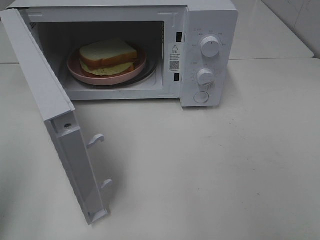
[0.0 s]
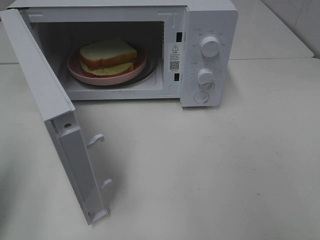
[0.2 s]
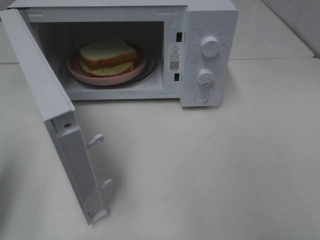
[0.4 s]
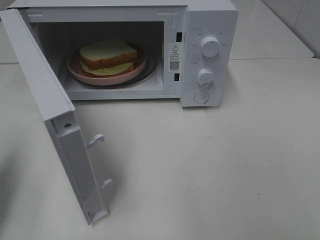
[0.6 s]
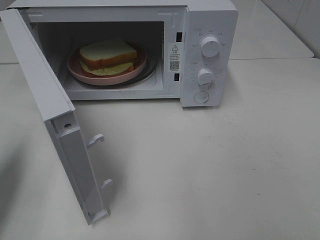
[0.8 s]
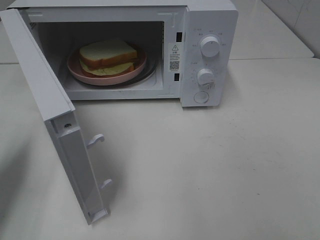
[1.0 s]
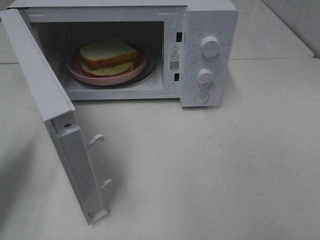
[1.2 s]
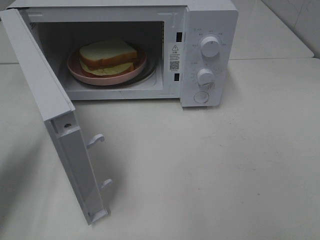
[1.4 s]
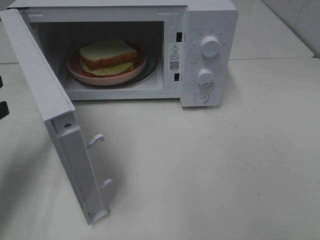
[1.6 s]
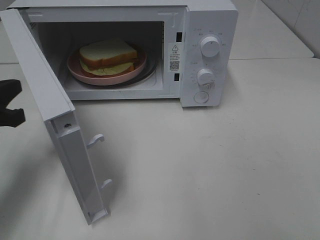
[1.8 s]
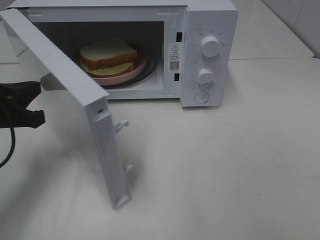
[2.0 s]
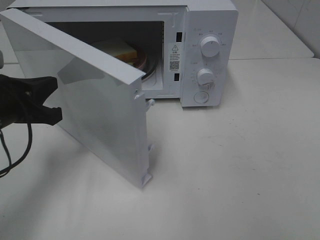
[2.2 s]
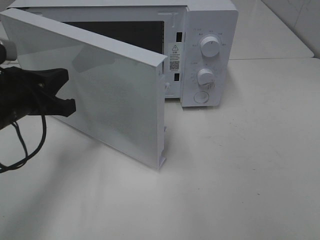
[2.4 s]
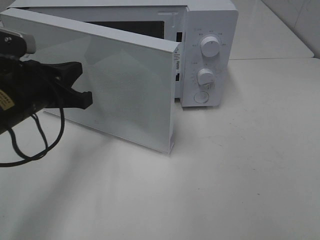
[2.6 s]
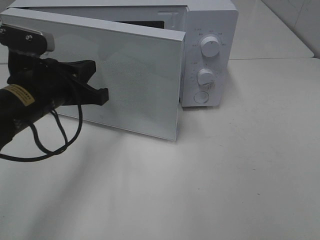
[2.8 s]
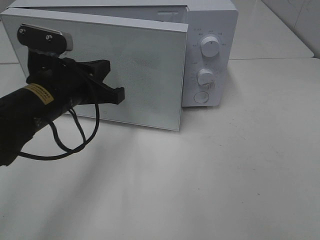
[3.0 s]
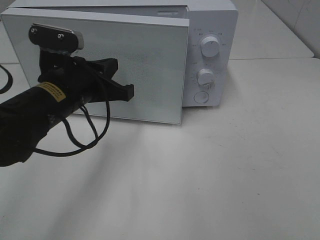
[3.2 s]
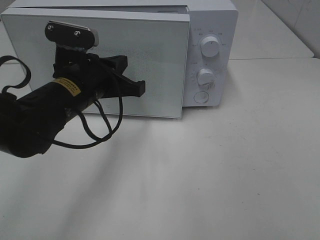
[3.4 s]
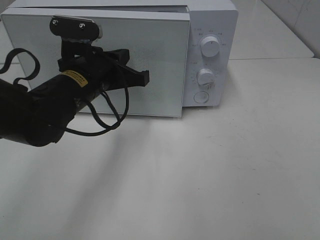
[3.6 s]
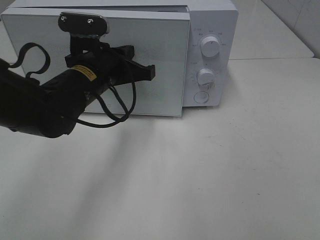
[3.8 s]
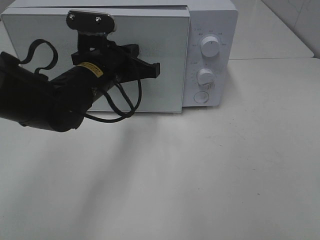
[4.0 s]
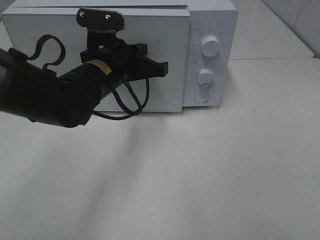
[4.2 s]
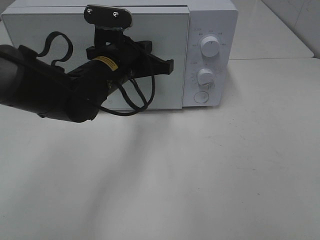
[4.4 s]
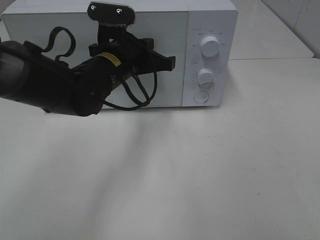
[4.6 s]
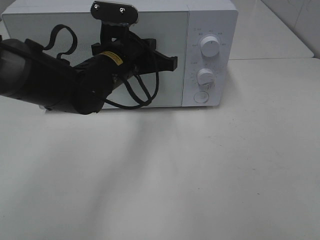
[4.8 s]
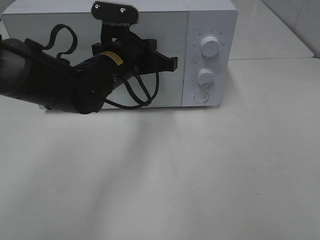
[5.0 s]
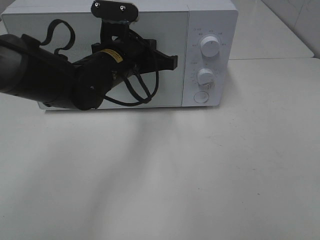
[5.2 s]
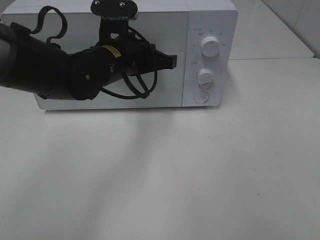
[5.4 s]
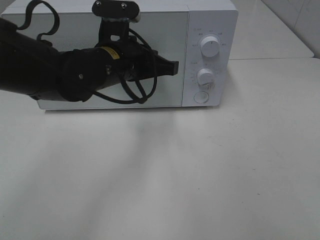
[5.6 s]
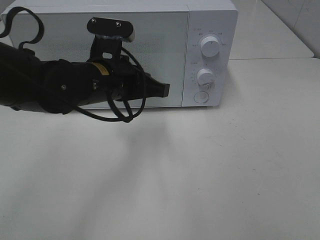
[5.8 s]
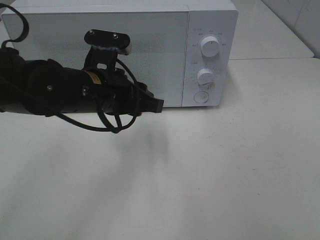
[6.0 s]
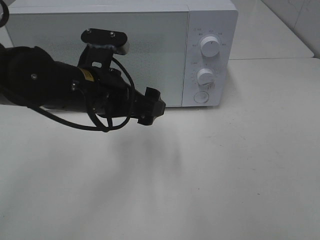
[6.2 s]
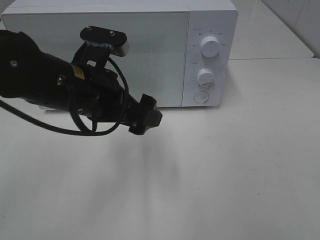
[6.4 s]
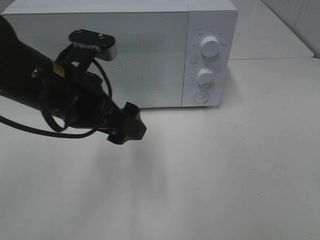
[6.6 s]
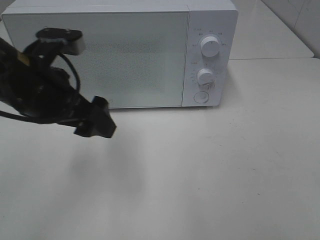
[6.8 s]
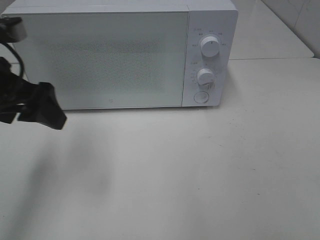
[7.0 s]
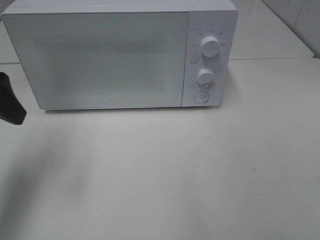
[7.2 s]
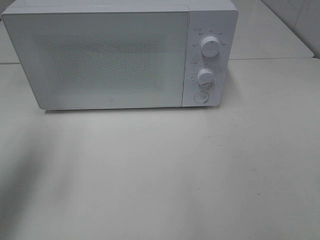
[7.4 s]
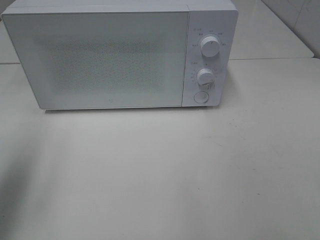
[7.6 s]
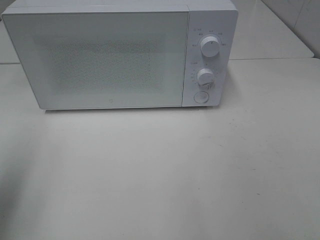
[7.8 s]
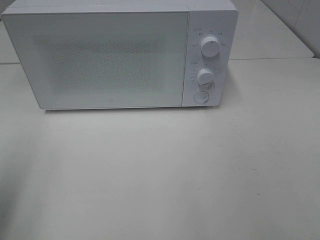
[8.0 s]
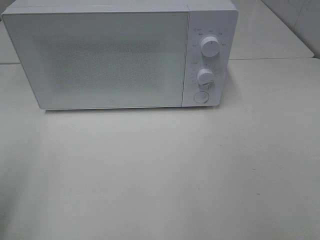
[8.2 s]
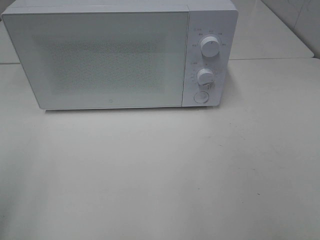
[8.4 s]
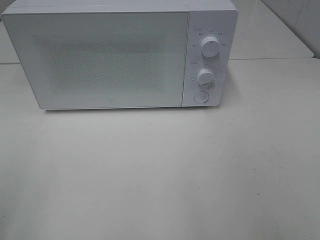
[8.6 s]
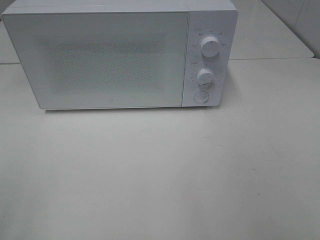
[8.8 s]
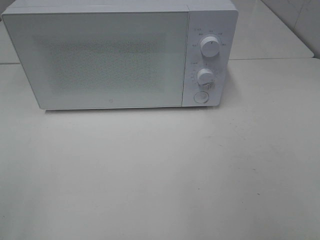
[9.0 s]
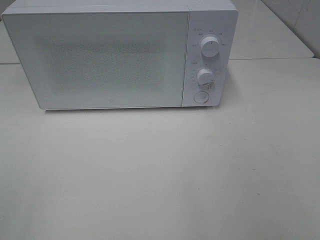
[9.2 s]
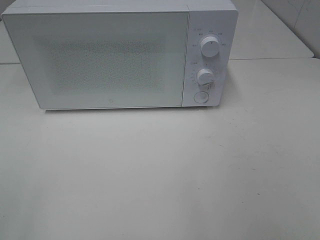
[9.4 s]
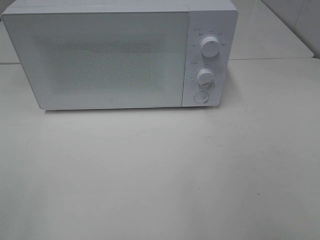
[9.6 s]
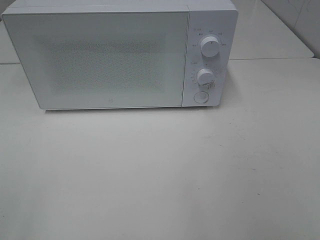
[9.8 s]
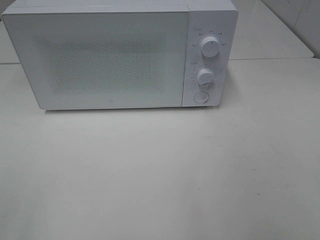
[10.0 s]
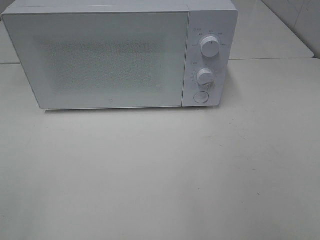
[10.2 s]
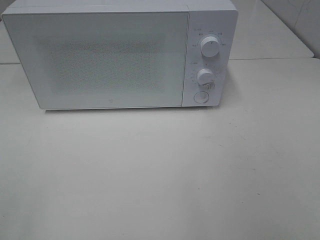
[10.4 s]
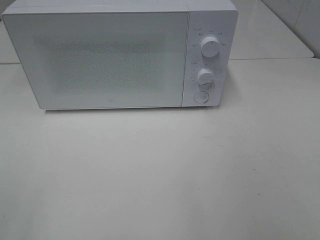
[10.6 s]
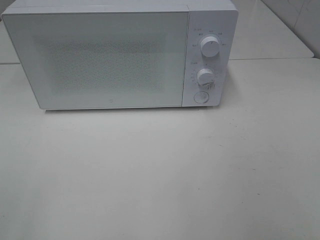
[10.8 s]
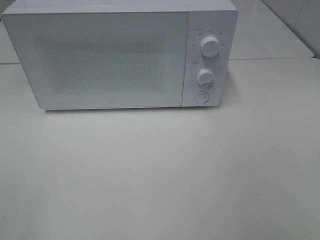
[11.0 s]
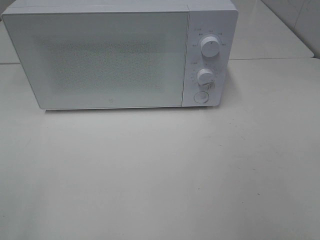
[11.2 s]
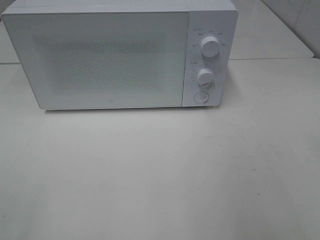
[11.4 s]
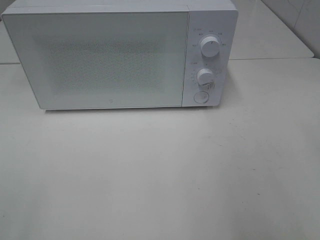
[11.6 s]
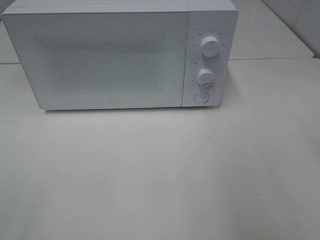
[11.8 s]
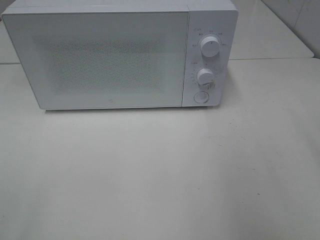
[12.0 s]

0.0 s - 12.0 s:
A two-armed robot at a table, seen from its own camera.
Task of the whole recording: Heat Sandwich.
Step, 0.0 s - 6.0 s: Left hand: close the microwave door.
0.0 s - 1.6 s: The left gripper shifts some 20 cm forward and downward.
1.6 s - 3.0 s: The left gripper moves to the right, about 15 cm.
3.0 s - 4.4 s: The left gripper is displaced to the right and forward by approximately 10 cm.
4.4 s - 6.0 s: The left gripper heads backward, covering some 5 cm, and opens up.
6.0 s - 7.6 s: The left gripper moves to the left and upward, about 25 cm, and opens up.
7.6 s - 9.0 s: The left gripper shifts some 15 cm backward.

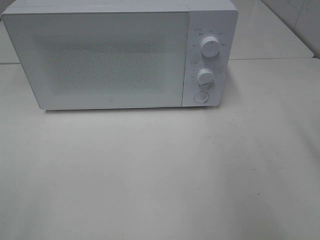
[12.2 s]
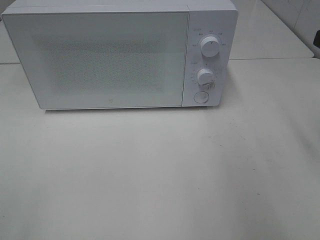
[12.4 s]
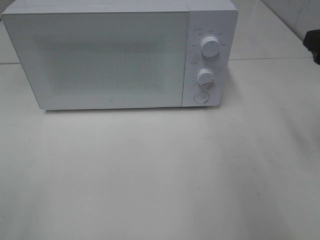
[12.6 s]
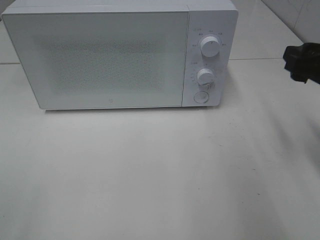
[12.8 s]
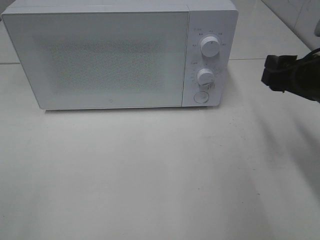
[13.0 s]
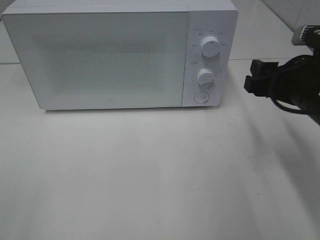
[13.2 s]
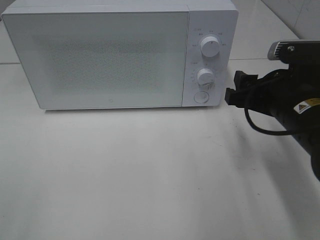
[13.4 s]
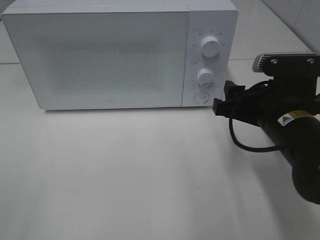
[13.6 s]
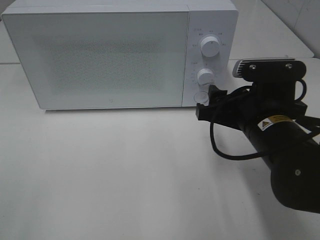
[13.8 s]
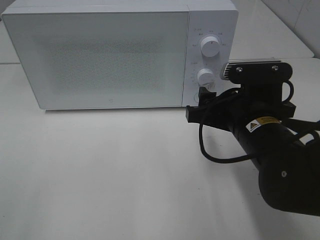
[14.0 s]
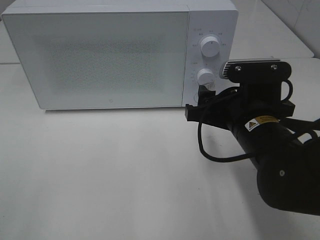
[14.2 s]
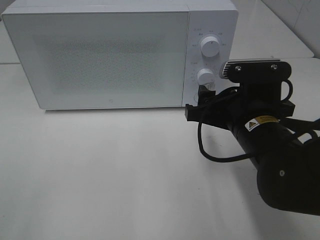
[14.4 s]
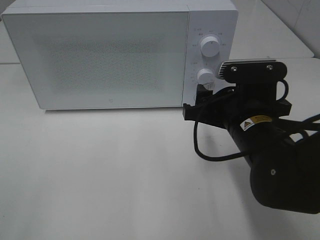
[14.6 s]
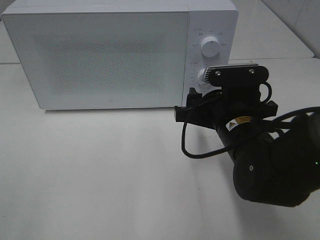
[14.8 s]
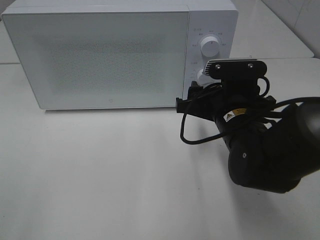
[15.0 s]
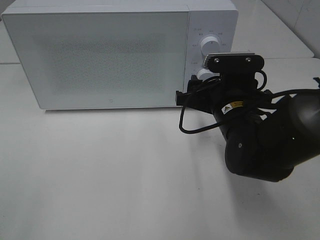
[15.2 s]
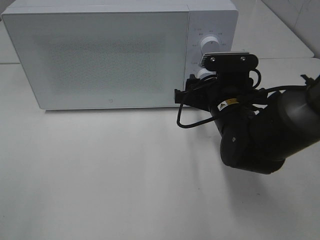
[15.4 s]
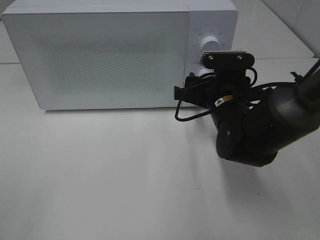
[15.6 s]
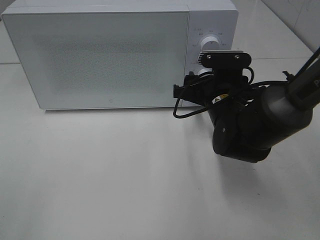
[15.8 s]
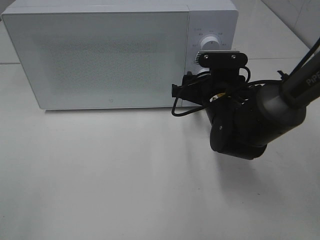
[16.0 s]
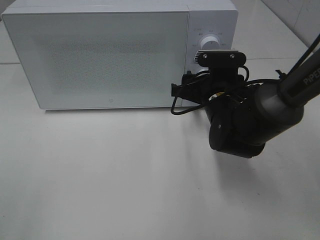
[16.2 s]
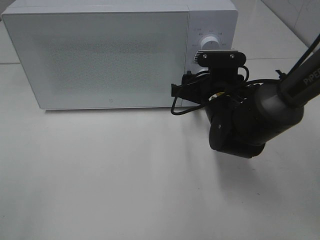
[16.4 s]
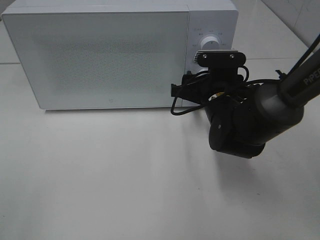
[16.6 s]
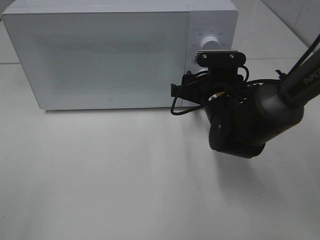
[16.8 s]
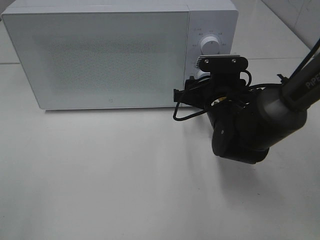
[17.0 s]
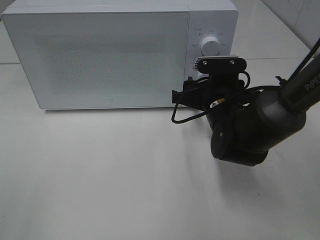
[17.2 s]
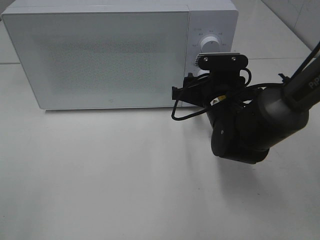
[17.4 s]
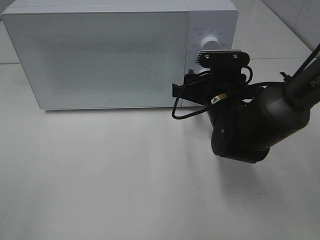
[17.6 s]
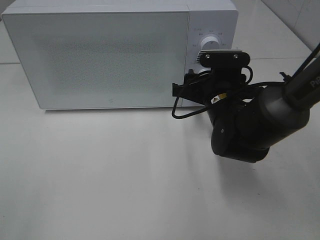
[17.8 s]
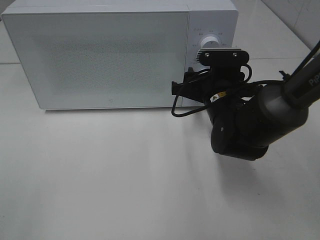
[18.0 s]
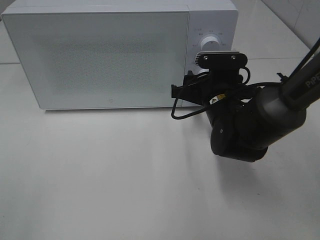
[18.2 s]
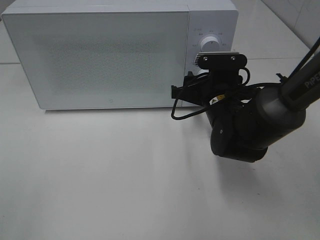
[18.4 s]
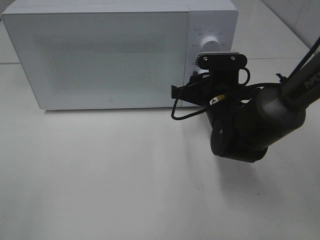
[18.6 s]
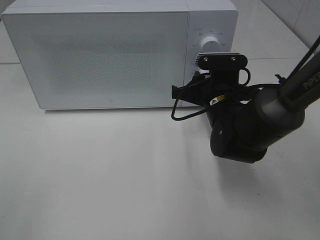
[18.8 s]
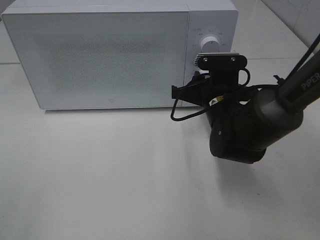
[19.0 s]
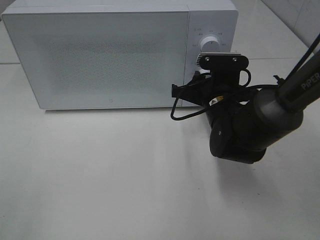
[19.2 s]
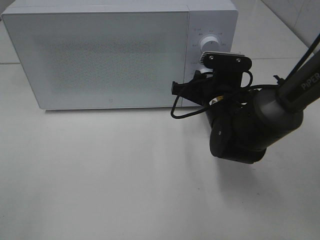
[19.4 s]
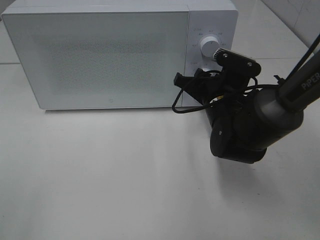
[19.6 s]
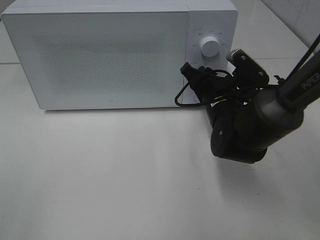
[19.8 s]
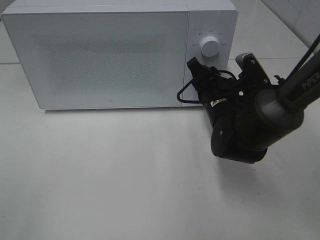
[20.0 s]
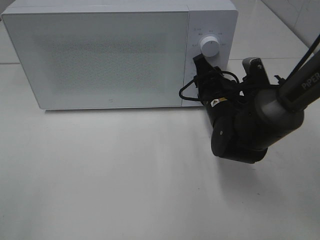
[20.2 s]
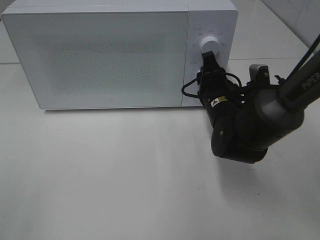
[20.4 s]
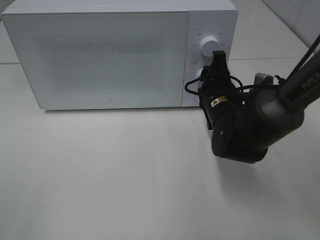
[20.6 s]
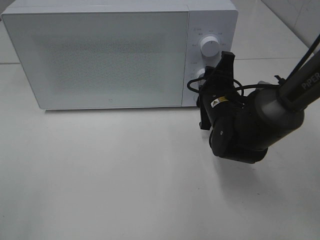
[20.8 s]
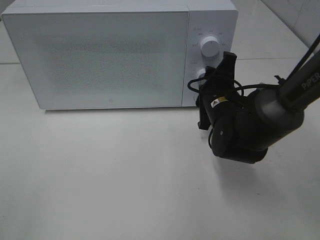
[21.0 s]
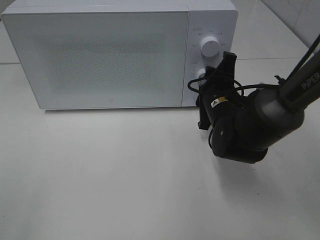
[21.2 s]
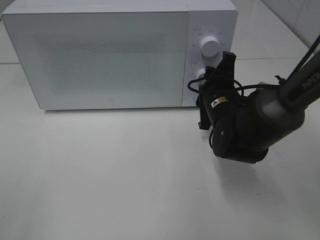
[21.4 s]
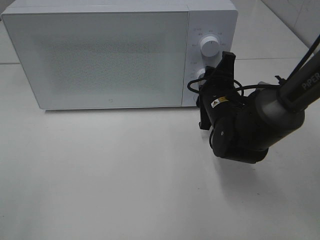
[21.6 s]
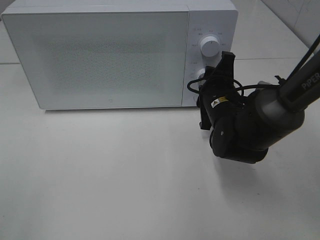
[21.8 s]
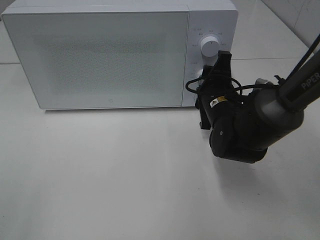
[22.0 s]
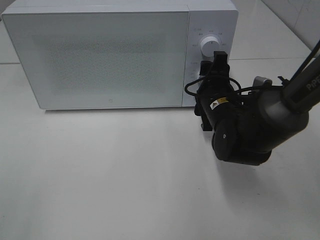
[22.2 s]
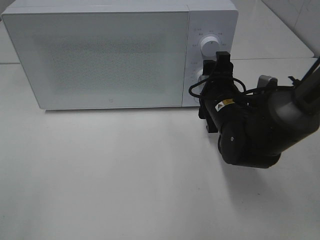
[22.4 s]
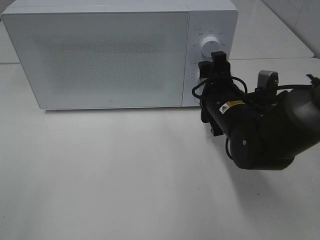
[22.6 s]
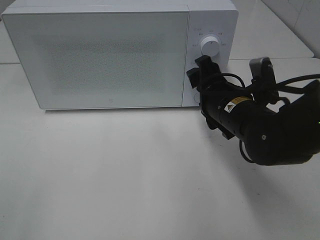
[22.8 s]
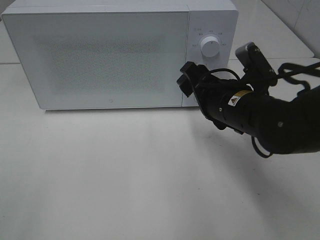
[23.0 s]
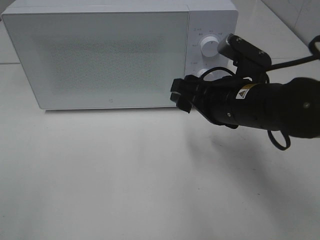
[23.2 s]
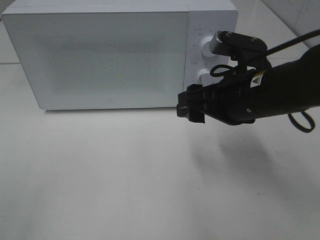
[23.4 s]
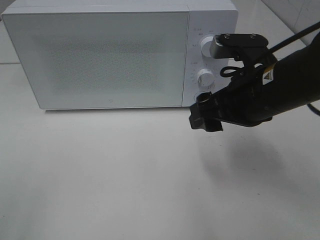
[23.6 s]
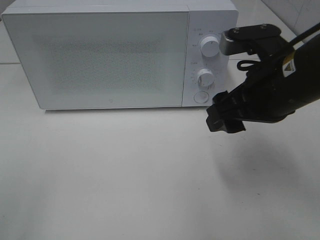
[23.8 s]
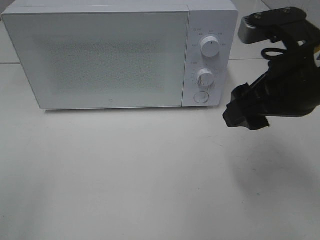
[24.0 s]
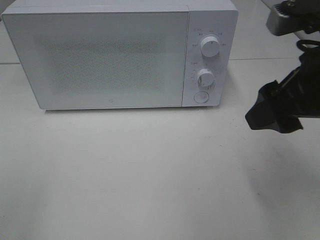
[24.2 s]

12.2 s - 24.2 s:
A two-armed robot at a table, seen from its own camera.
Task of the whole recording: Heat Sandwich.
Step, 12.2 s - 22.8 s: Right hand: twist timer button.
12.2 s - 13.8 s: The right gripper goes about 20 cm to the left and downward.
13.8 s - 15.2 s: The right gripper travels forward by about 5 cm.
15.2 s - 16.6 s: The right gripper travels forward by some 5 cm.
16.6 s - 18.2 s: Both grippers stay about where they are.
22.6 s - 24.2 s: The right gripper moves upward and backward, some 20 cm.
